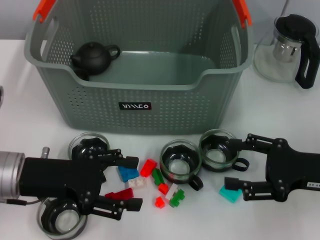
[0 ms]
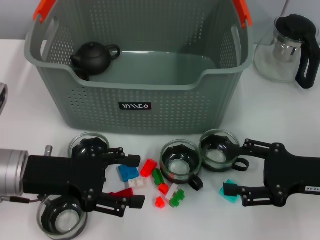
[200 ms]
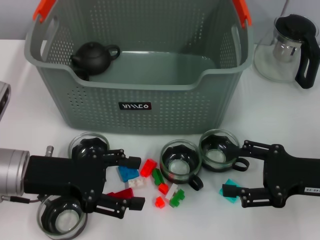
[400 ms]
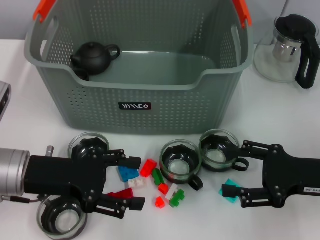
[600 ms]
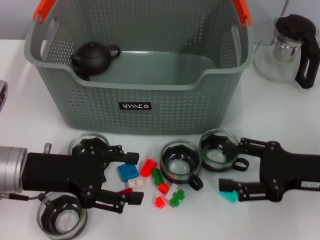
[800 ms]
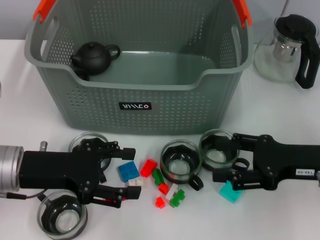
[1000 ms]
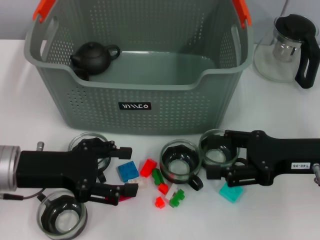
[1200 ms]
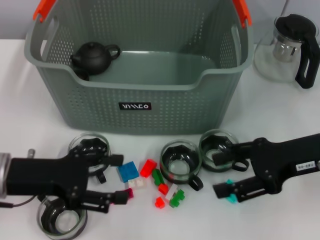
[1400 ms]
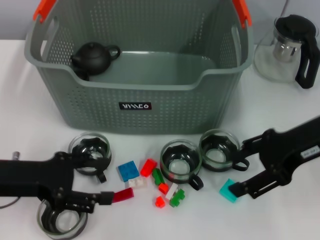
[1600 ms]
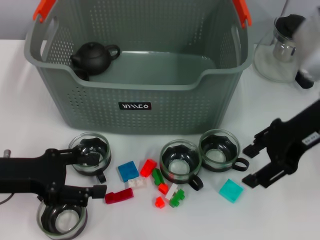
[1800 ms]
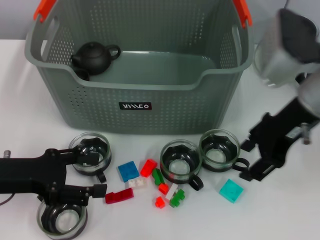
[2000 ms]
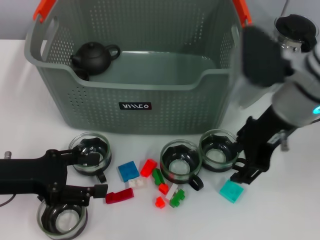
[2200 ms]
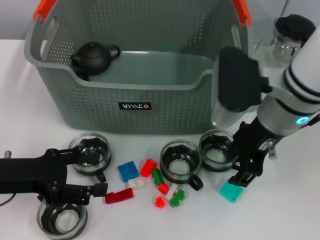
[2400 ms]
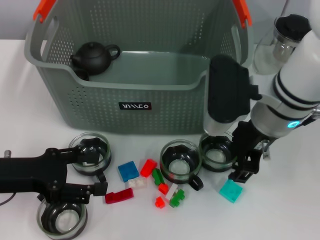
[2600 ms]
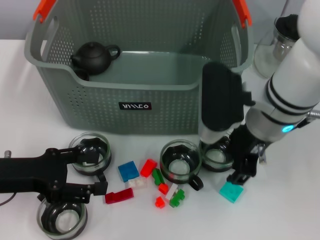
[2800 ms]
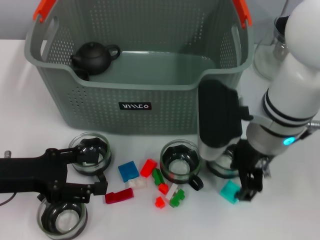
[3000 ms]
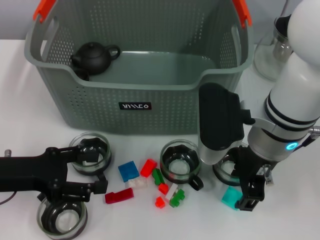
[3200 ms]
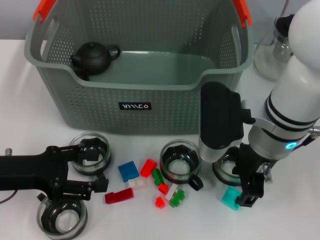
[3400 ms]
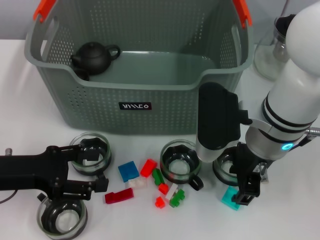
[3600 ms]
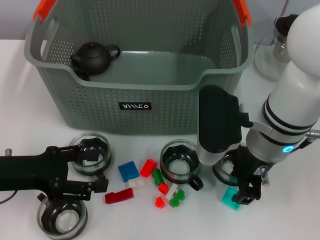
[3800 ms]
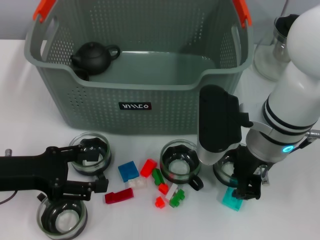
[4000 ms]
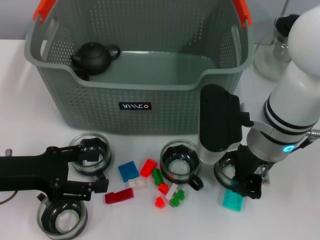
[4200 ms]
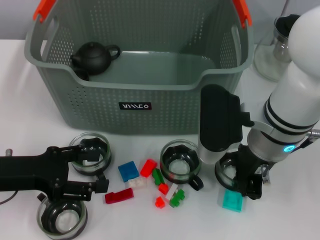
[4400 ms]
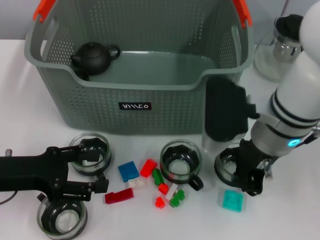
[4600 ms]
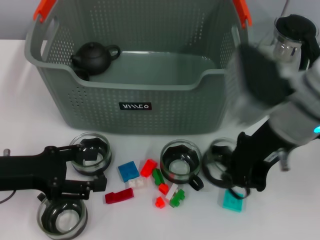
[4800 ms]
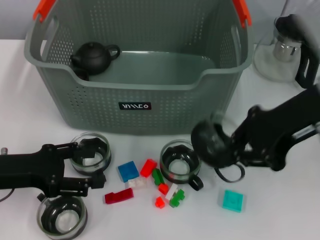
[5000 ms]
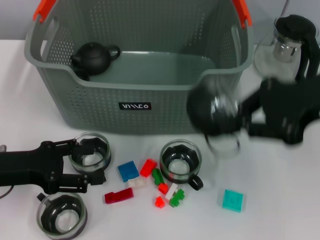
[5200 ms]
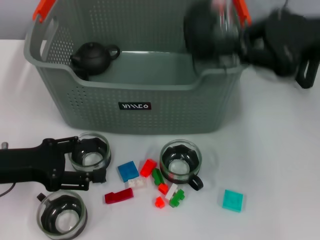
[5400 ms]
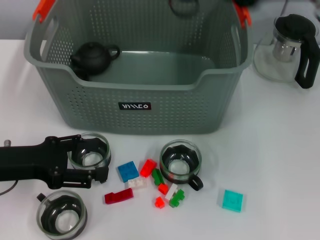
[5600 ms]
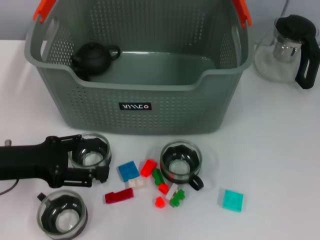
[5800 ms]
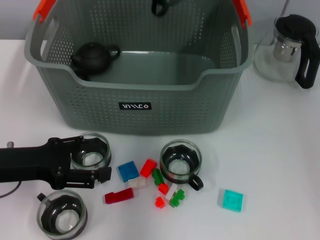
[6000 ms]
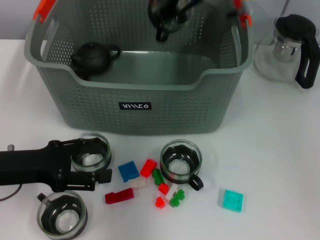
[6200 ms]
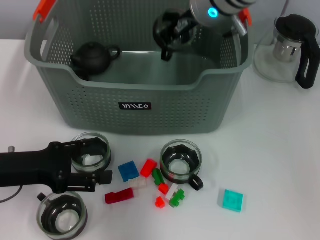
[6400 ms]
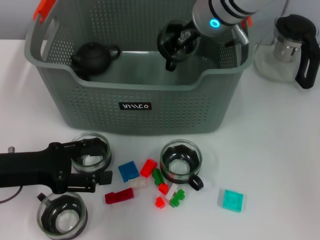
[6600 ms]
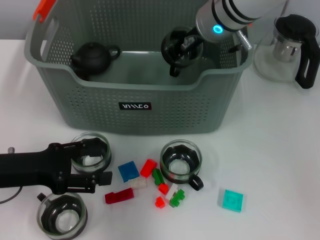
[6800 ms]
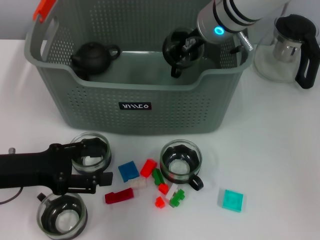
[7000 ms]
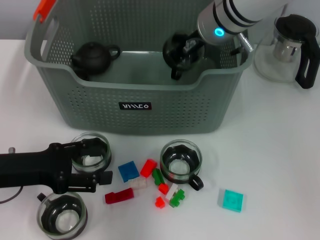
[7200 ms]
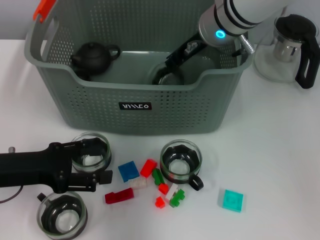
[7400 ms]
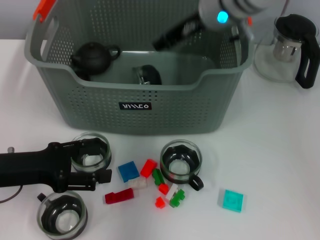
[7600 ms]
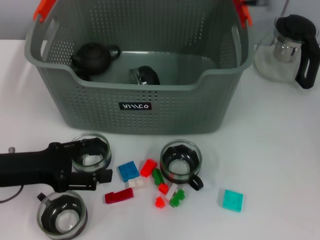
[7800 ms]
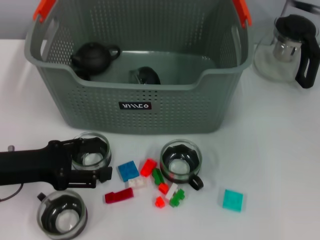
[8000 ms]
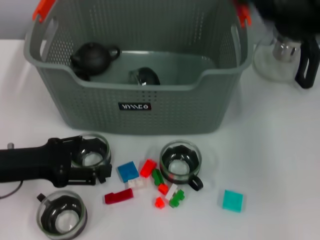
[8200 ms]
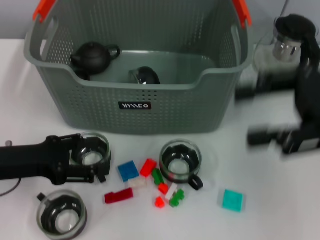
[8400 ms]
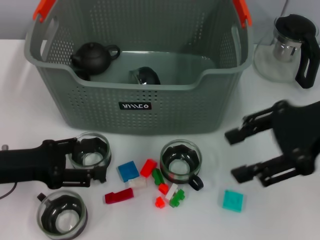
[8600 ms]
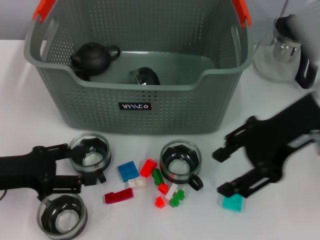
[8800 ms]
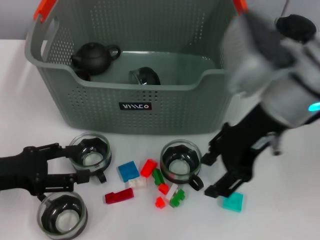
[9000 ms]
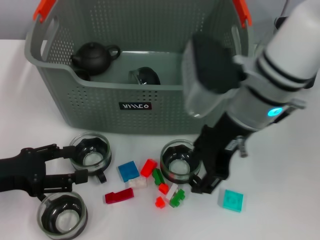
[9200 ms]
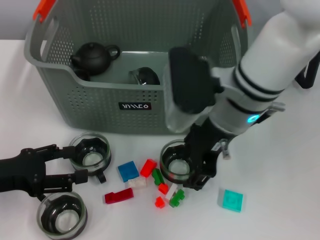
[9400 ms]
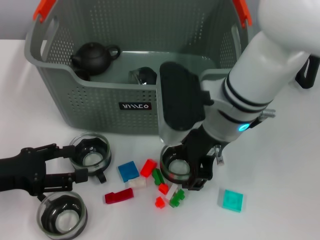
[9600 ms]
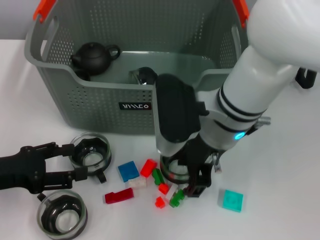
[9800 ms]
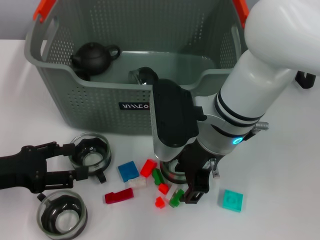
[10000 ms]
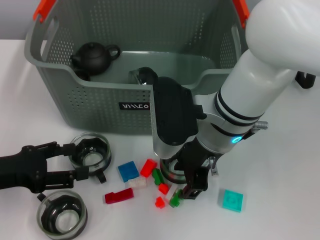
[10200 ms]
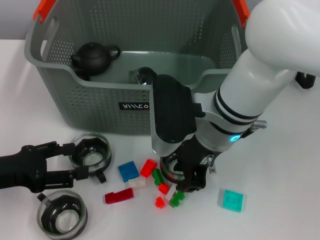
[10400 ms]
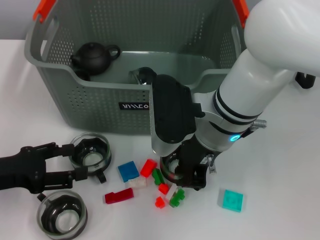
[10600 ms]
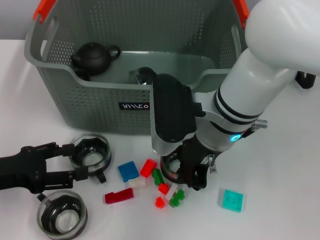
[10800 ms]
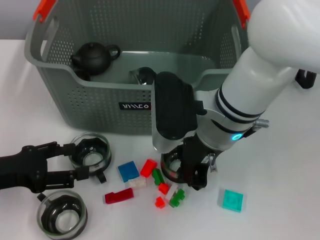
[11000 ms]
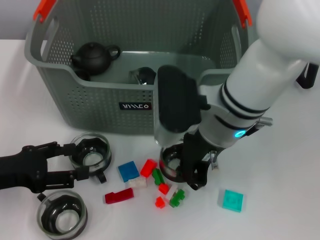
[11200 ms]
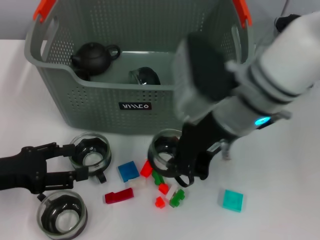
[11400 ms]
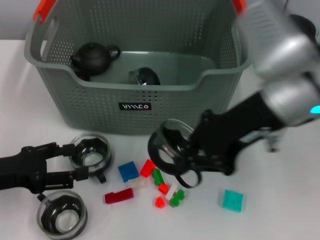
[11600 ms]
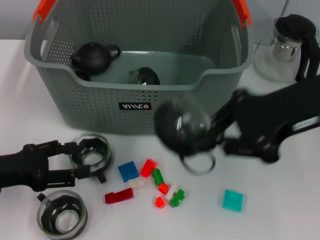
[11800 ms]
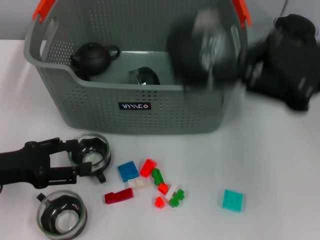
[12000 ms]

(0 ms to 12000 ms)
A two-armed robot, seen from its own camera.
Task of the whole recording: pick up the teacup on the table and place it into the storage bin, pick up the block on the table and place it into the storage bin.
Step, 0 ms - 4200 ms: Grasp the cup with right gripper.
Step, 4400 ms - 7200 ms: Place the cup in the storage box with right gripper.
Step, 7600 ms - 11000 ms: Grasp the cup with right gripper.
0 ms - 1600 ms: The right gripper is displaced upward, forward and to the left by some 15 cm.
1600 ms - 3000 ms: The right gripper goes approximately 10 cm to the left.
3000 ms - 4400 ms: The right gripper closes.
4400 ms - 6000 ms: The right gripper is displaced upward and forward by roughly 20 cm.
6000 ms - 7600 ms: The right gripper is displaced downward by some 5 cm.
7600 ms - 9000 ms: The right gripper is displaced backward by some 10 cm, travels to the right and back again, about 20 cm each way, and opens.
9000 ms - 10400 ms: The right gripper is displaced to the left and downward by some 10 cm.
10400 ms - 12000 ms: The right gripper shifts approximately 20 cm to the right and upward, and closes its fingers.

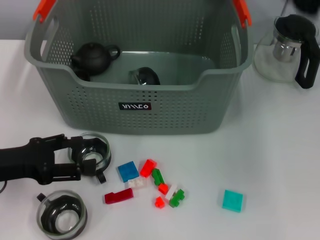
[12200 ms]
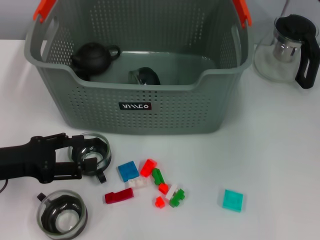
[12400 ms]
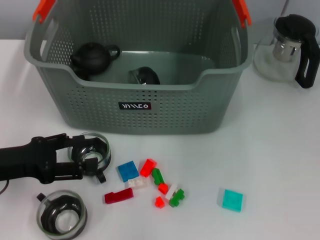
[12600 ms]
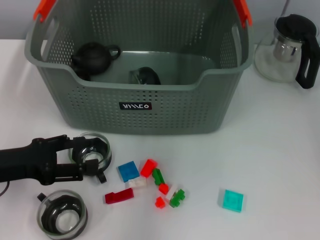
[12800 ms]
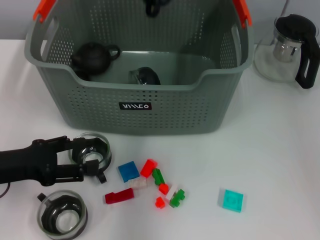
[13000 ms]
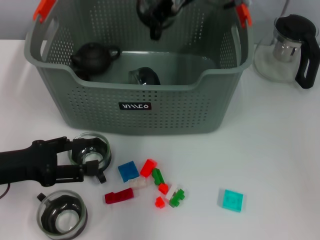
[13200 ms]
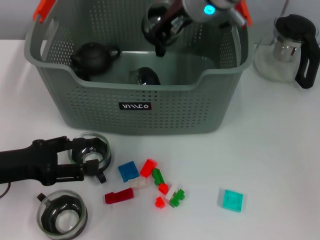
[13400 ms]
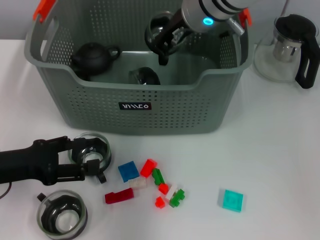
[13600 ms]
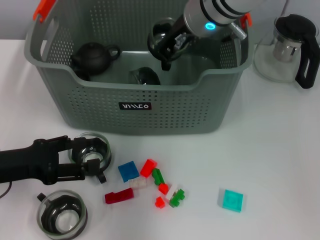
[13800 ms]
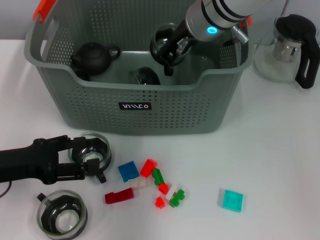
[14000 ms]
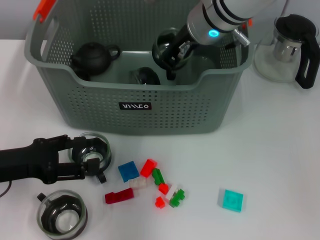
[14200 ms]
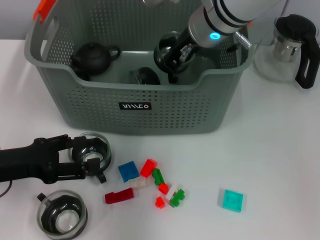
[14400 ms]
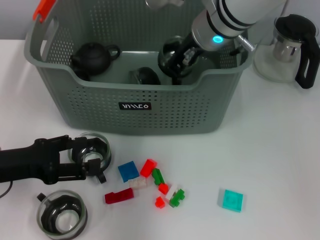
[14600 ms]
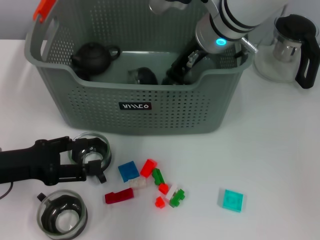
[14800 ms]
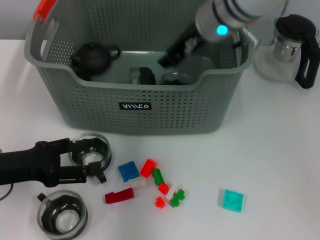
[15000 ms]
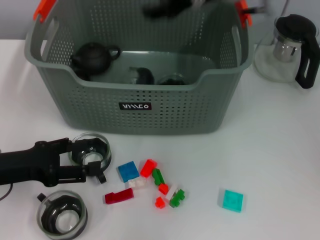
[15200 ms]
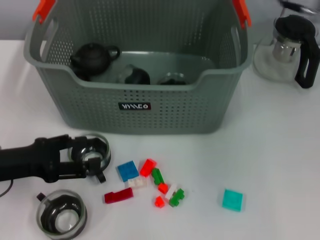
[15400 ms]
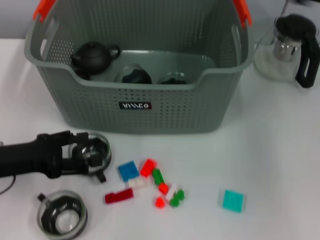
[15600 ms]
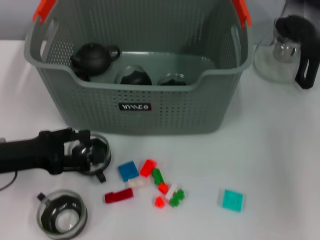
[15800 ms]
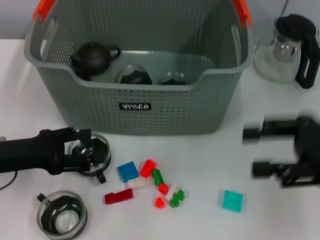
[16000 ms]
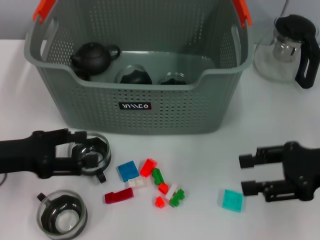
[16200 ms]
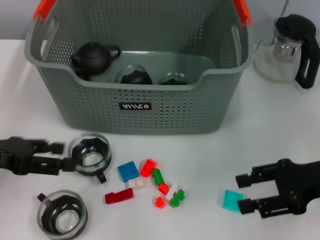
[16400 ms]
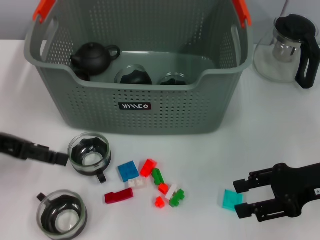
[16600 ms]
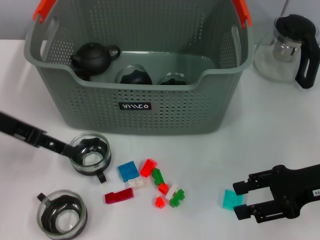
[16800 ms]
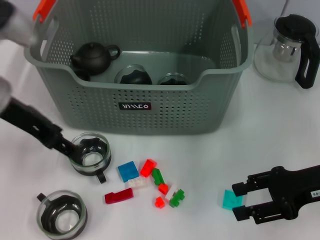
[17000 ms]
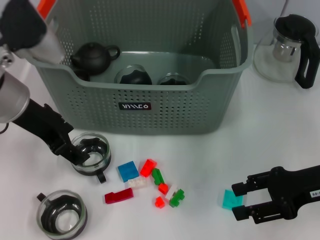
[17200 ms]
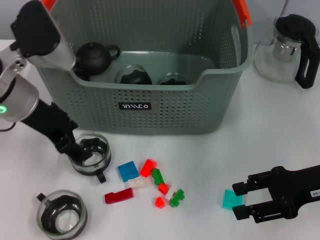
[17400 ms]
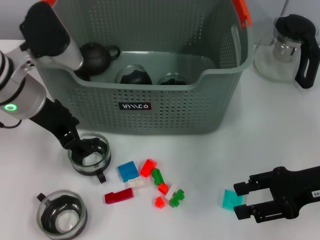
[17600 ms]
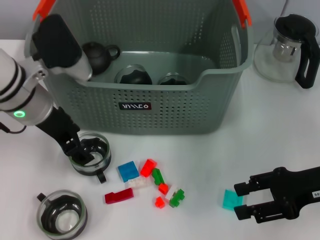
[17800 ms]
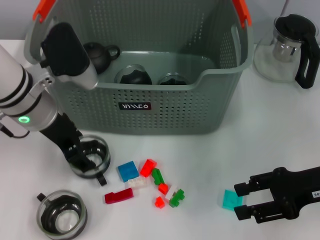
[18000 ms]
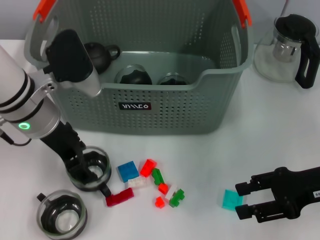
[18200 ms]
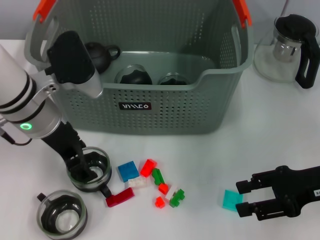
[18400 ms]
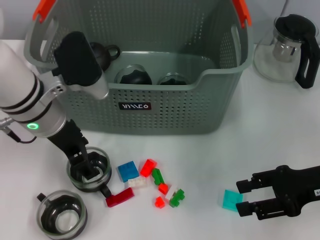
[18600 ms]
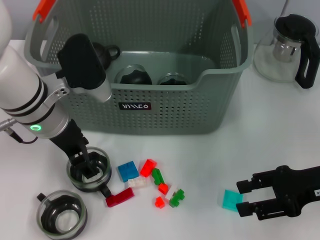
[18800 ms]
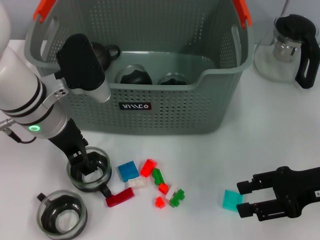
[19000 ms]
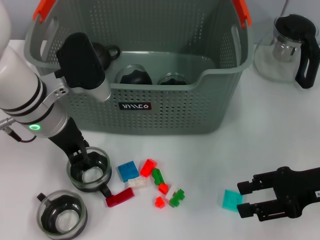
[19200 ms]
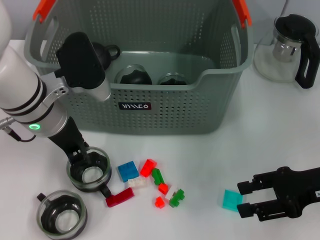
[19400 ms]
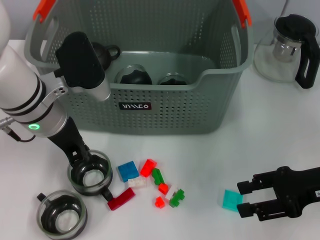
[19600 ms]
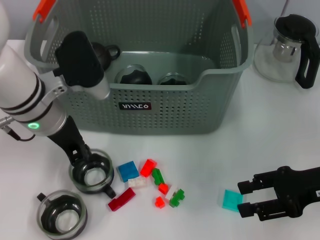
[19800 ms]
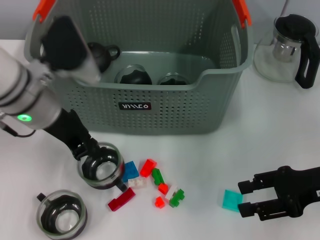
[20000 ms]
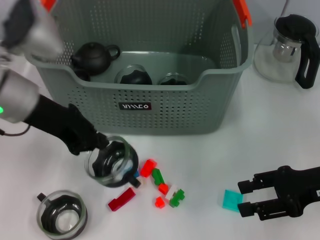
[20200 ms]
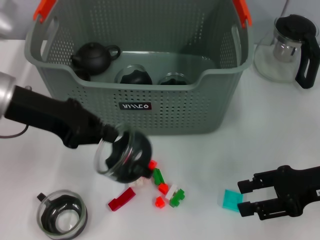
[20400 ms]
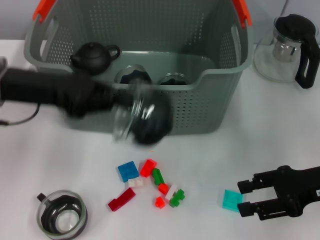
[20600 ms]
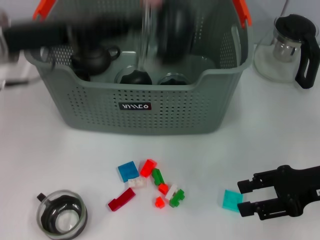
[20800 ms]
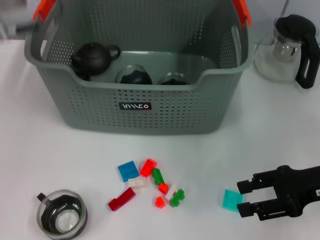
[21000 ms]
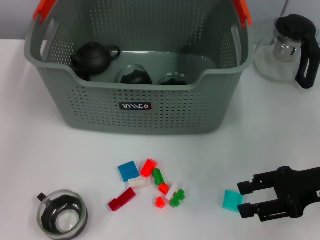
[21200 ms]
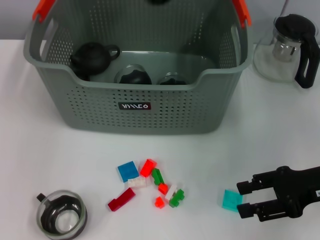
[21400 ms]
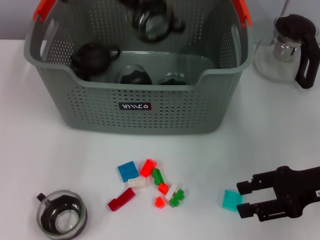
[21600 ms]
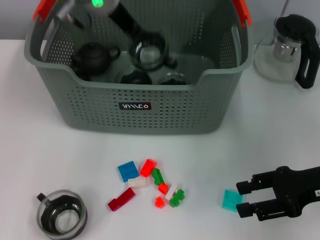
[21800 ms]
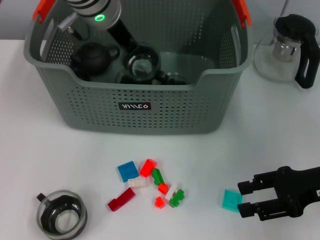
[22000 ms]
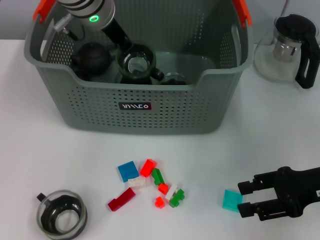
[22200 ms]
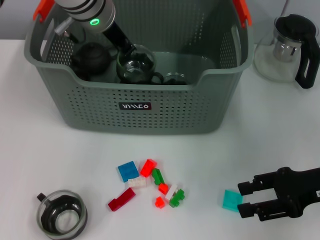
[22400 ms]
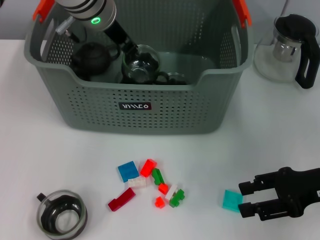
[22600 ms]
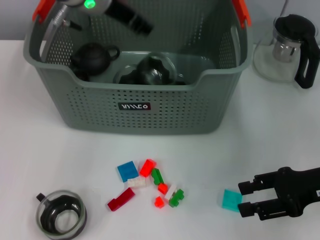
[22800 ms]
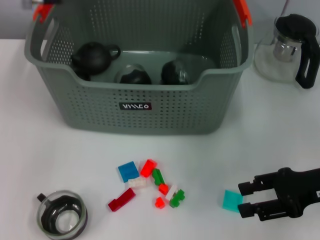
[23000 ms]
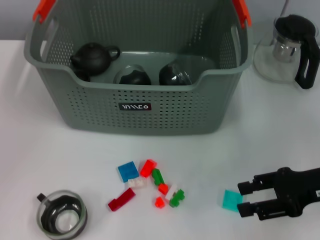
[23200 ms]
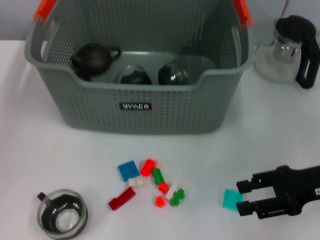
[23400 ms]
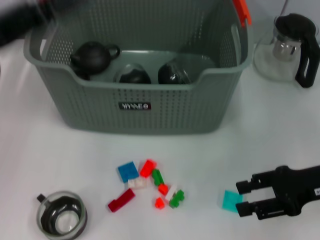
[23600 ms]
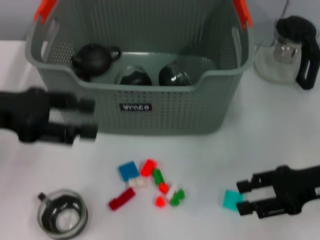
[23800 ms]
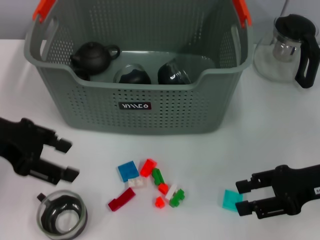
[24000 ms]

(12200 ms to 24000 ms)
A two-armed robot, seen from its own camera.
Task of the whole recording: pick up the teacup on the table and place it into the storage bin, pick up the block on the table and place it into the storage bin.
Step, 12200 ms - 14800 ms: Place the cup in the storage box with right gripper.
Step, 15000 ms - 19600 ms: Grasp the cup with left gripper.
Step, 20000 ms - 22600 ms: Place the cup in the storage box with left gripper.
12200 ms - 13600 ms: The right gripper goes roughly 20 cm to the left and forward.
13600 ms - 15200 ms: The right gripper travels to the right by some 5 cm.
15200 ms - 16600 ms: The right gripper moves to the right, downward and backward, some 25 cm, and opens up. The left gripper moves upward, roughly 10 cm.
16600 ms - 18200 ms: The left gripper travels to the right by some 15 cm.
18200 ms - 19600 ms: The left gripper closes up.
19600 ms - 21000 ms: The left gripper is displaced upward by roughly 10 cm.
21000 ms - 22600 ms: The left gripper travels to the right and forward by roughly 15 cm.
22600 ms - 24000 ms: The left gripper goes some 25 cm to the left and backward, and opens.
